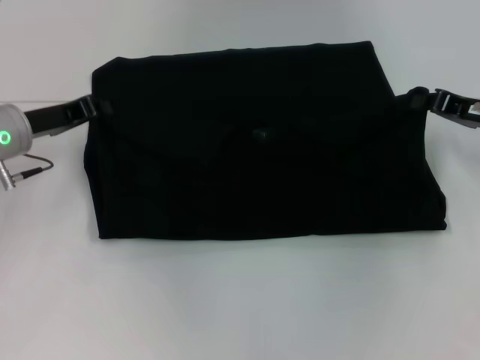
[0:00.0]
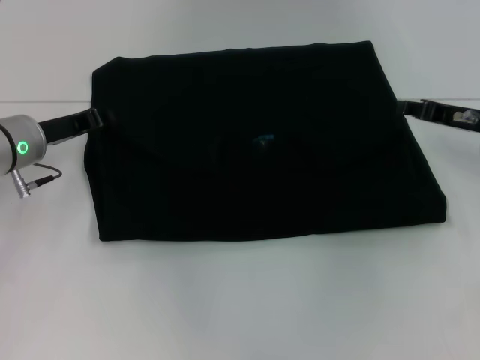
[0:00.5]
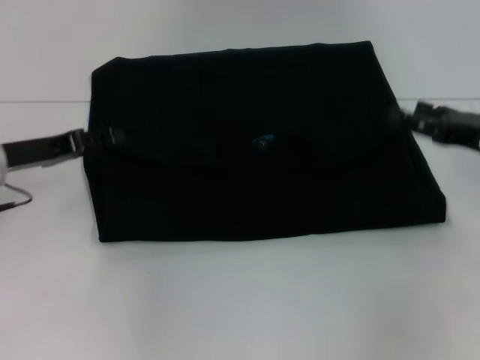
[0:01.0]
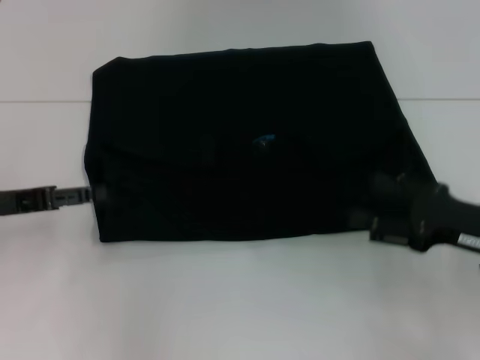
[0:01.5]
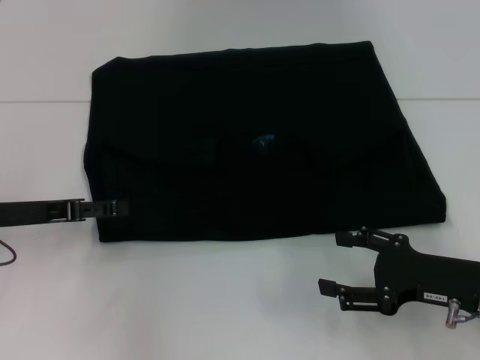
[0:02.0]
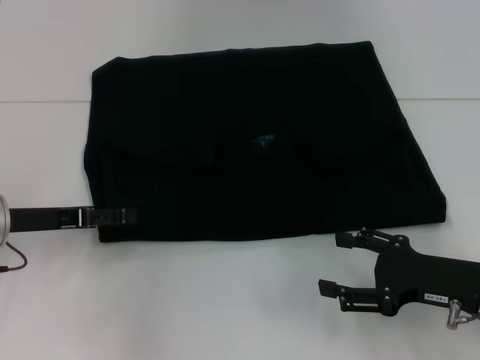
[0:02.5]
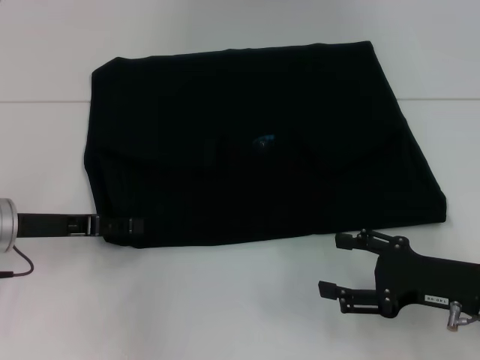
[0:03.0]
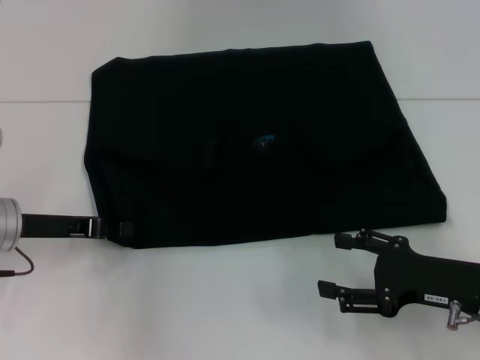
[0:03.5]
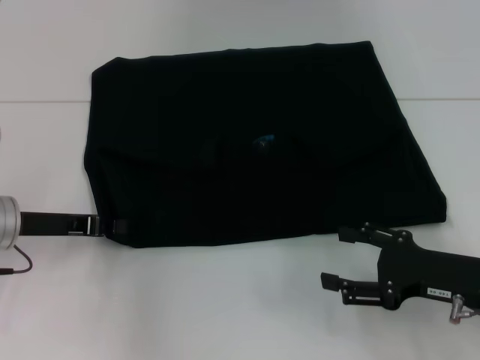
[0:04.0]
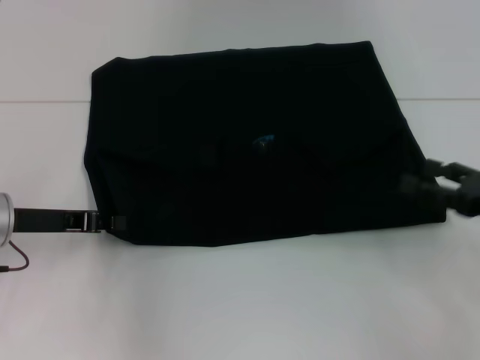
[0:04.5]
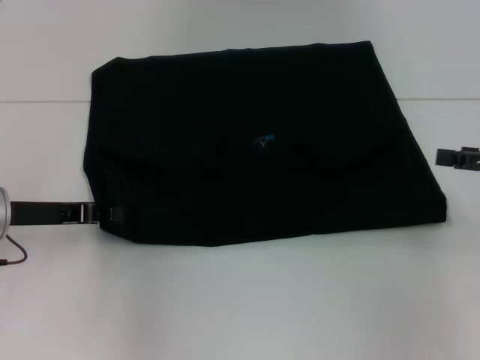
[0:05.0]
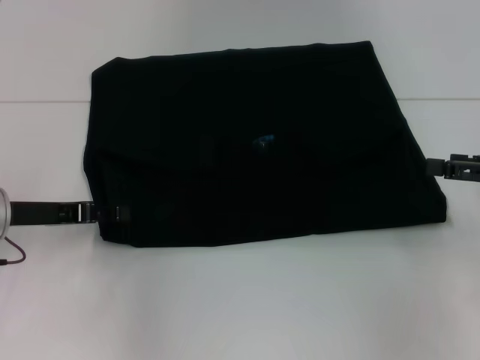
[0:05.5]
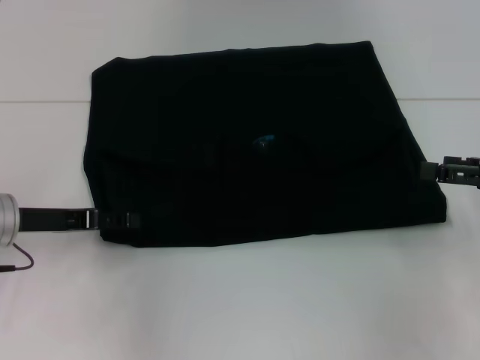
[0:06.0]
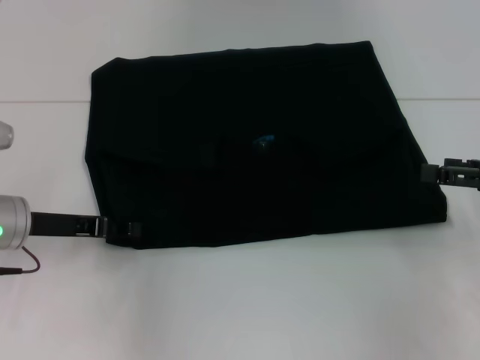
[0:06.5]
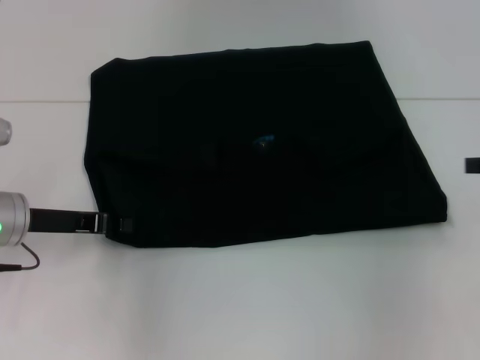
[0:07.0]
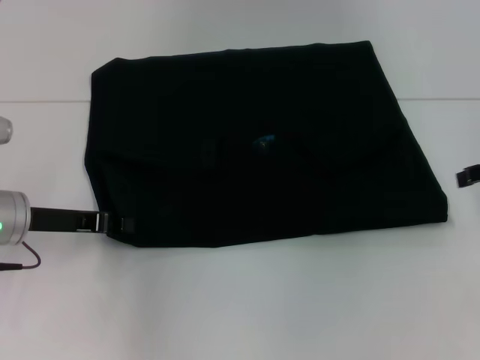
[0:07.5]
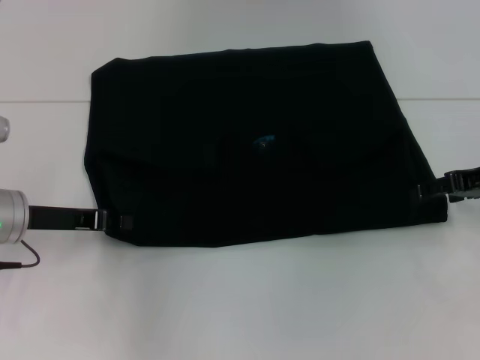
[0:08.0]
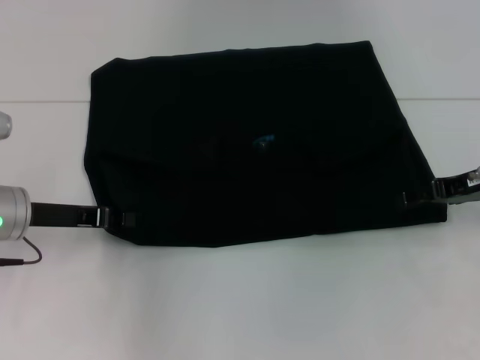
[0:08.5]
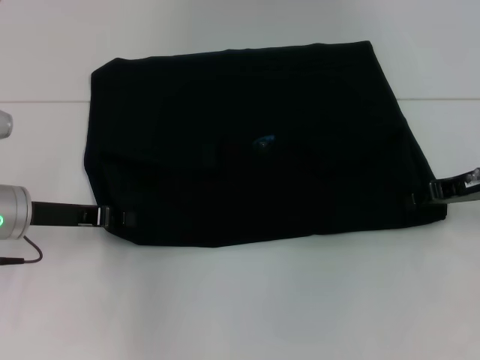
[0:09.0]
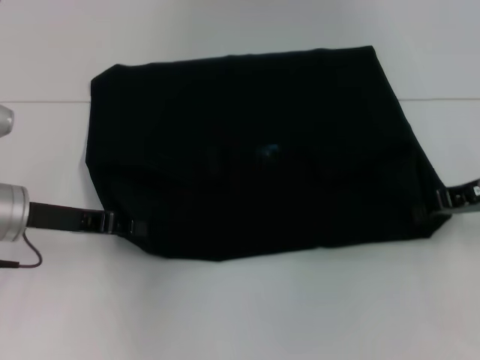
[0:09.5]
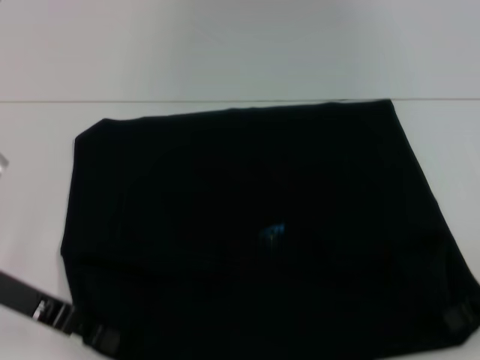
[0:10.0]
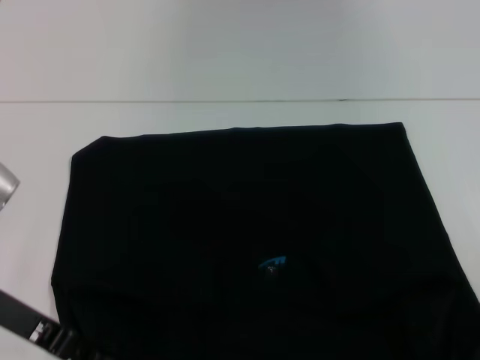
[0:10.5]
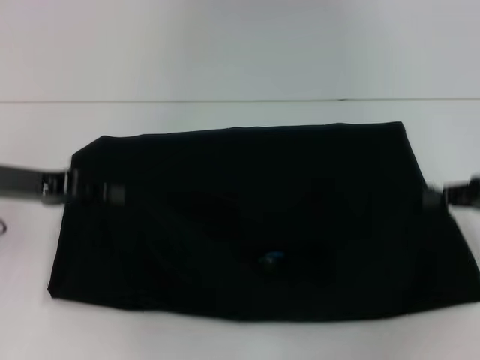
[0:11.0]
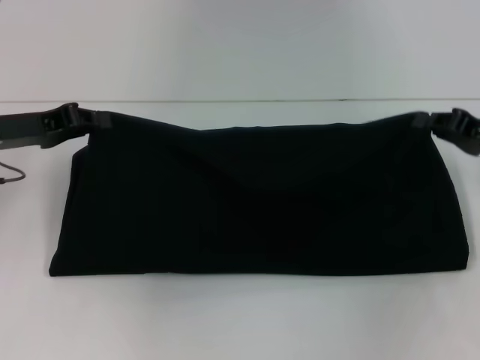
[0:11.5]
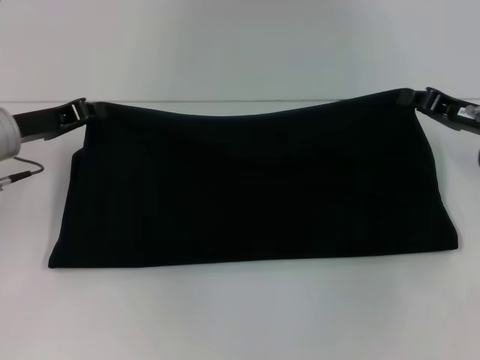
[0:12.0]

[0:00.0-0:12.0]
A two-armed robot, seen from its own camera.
Step, 0:01.5 to 0:10.0: Pull the clothes with your left hand.
Step, 0:01.5 to 0:10.0: Pull the clothes with your right hand.
0:00.0 to 0:02.0: The left gripper goes about 5 cm backward, and opens up, while the right gripper shifts roughly 15 cm backward and downward, and opens.
0:02.0 to 0:04.0: The left gripper closes up.
0:04.0 to 0:06.0: The right gripper is displaced to the right, upward and forward by roughly 15 cm. The left gripper opens.
0:06.0 to 0:08.0: The right gripper is displaced forward by about 5 cm, while the left gripper closes up.
0:08.0 to 0:10.0: The right gripper is displaced backward by some 5 cm, and closes; the left gripper moves roughly 5 cm.
0:10.0 to 0:12.0: Both grippers travel together forward, some 10 cm.

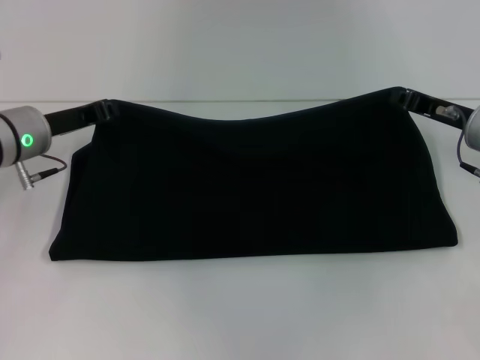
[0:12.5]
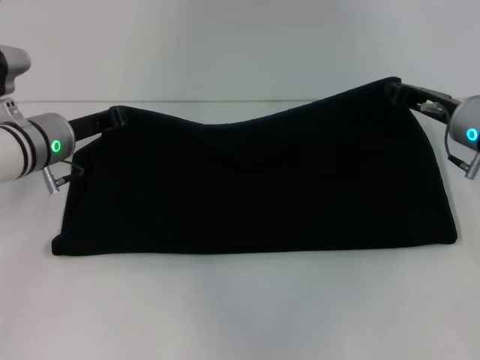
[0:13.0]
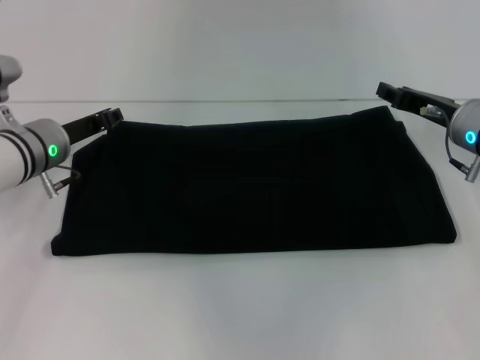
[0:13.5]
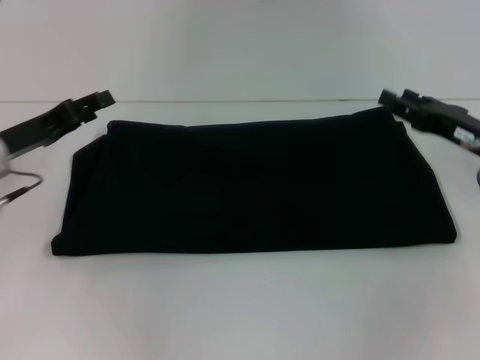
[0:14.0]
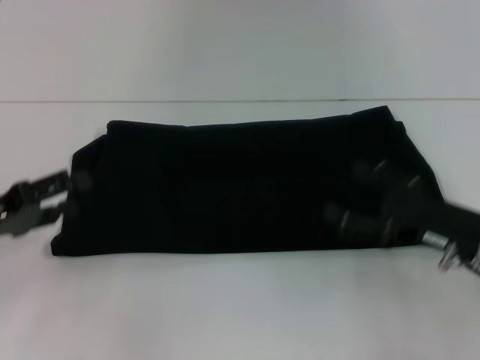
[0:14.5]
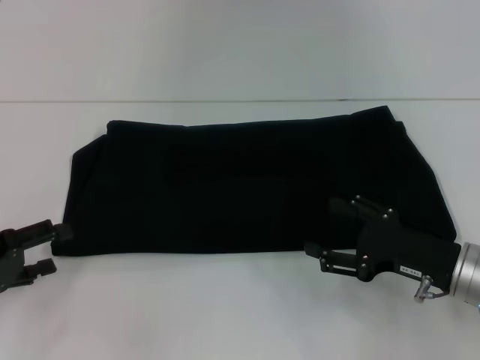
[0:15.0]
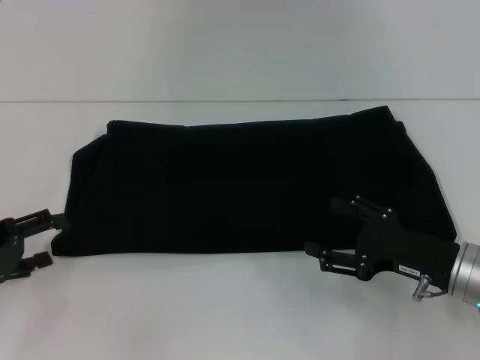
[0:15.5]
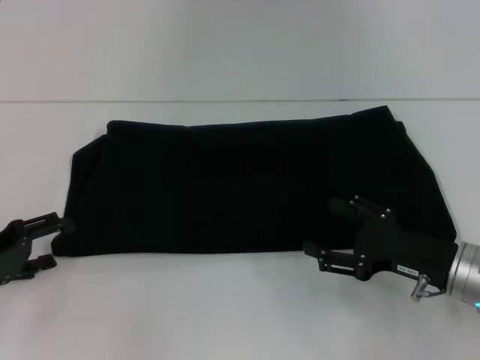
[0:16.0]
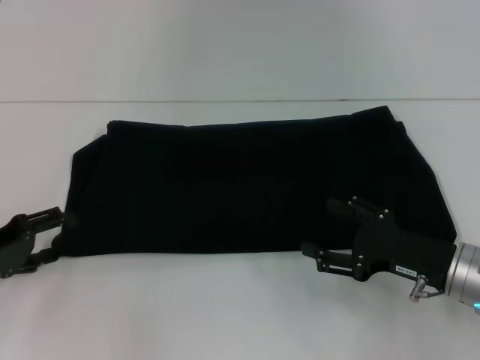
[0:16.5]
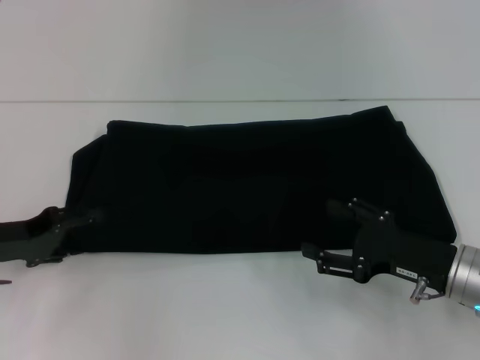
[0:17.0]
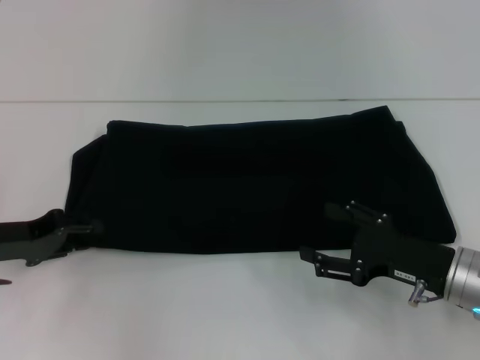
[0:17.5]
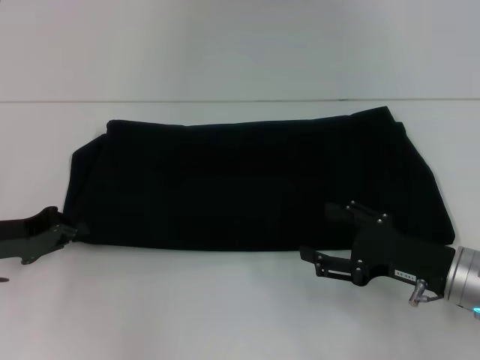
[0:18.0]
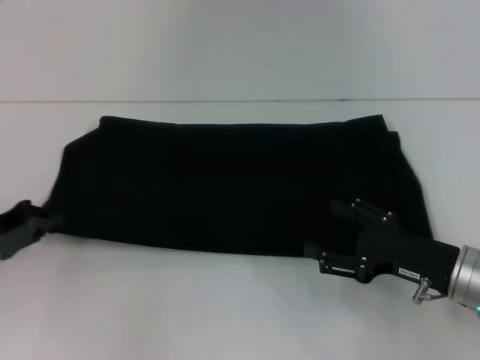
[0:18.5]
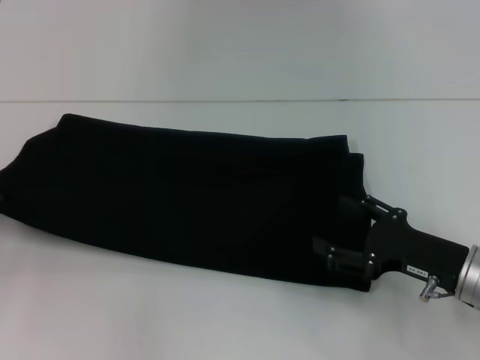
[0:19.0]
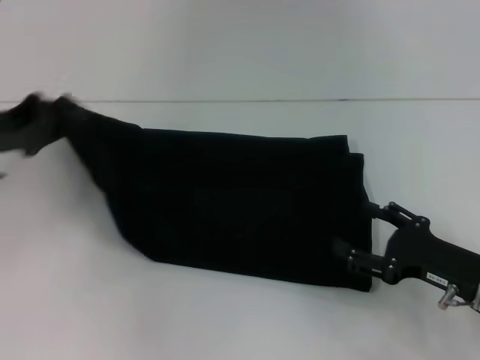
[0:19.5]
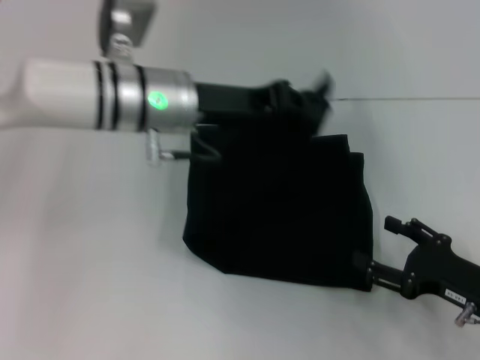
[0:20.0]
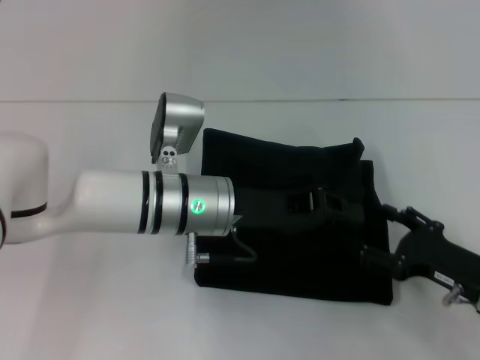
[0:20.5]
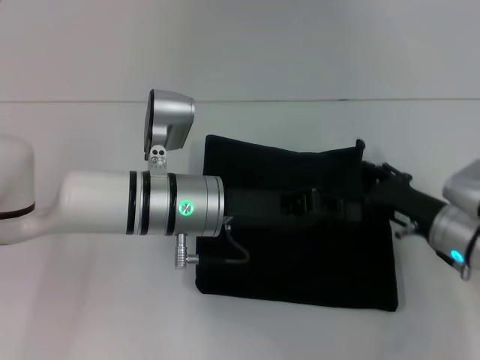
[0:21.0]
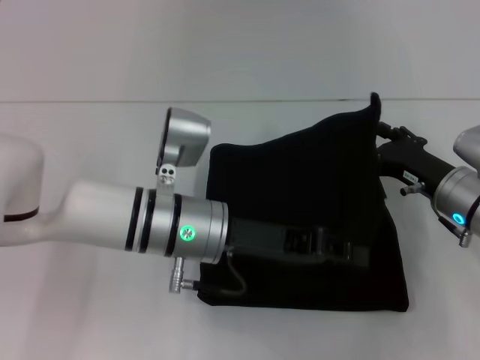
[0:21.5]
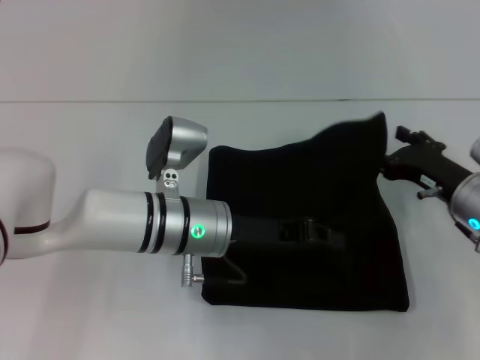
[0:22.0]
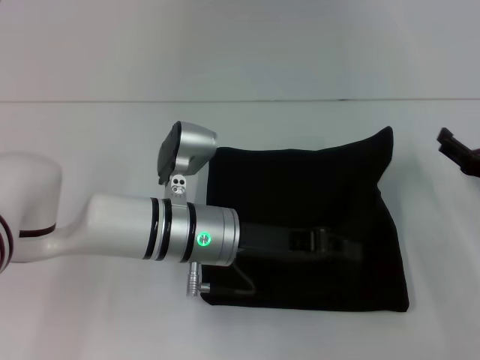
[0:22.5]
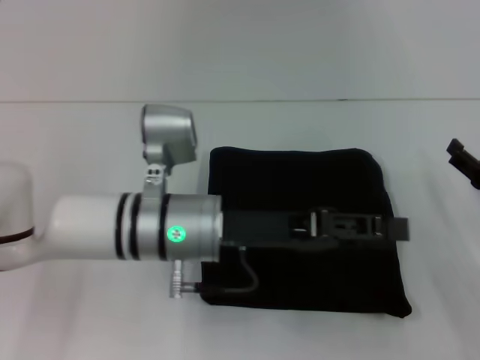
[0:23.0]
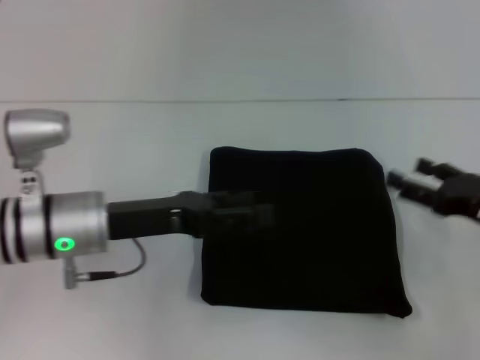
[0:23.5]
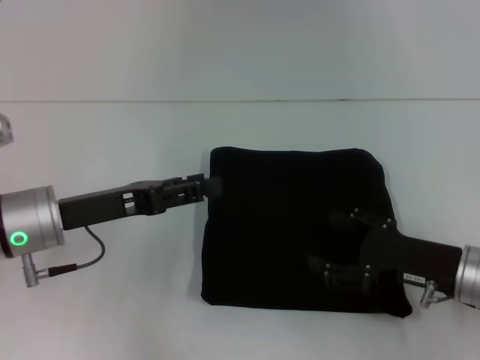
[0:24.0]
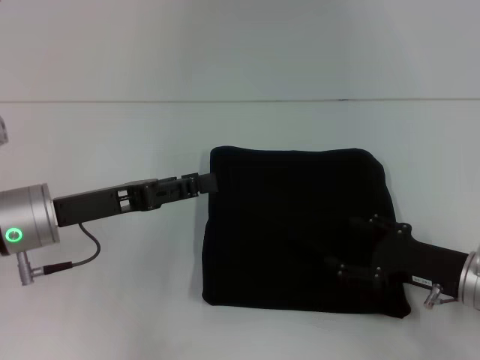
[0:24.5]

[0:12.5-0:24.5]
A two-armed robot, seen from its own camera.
Step, 0:12.5 to 0:21.5: Fold the clothes with your left hand.
0:12.5 to 0:14.5: The left gripper heads backward and to the left, covering roughly 15 cm, and opens its fingers. Meanwhile the right gripper moves backward, about 10 cm, and opens.
0:16.5 to 0:18.5: The left gripper closes.
0:18.5 to 0:20.5: The left gripper is displaced to the right by roughly 25 cm.
0:20.5 to 0:22.5: The right gripper is displaced forward by approximately 5 cm.
0:22.5 to 0:24.5: The left gripper moves to the left, about 15 cm, and opens up. The right gripper is displaced to the left by approximately 5 cm.

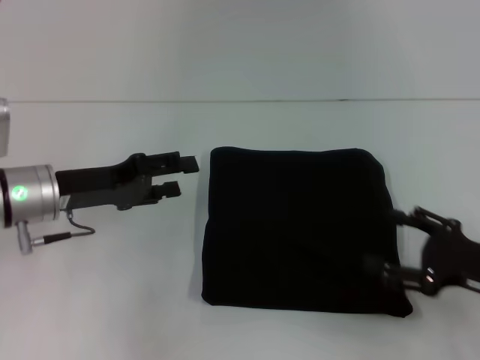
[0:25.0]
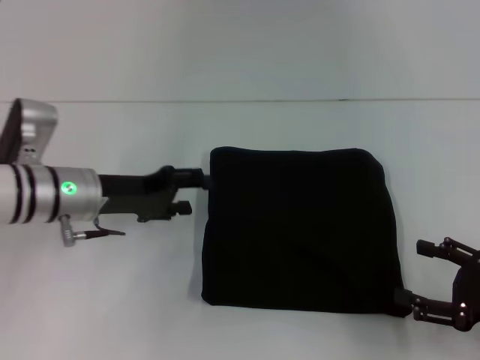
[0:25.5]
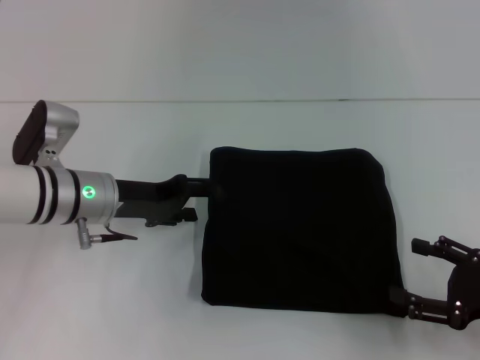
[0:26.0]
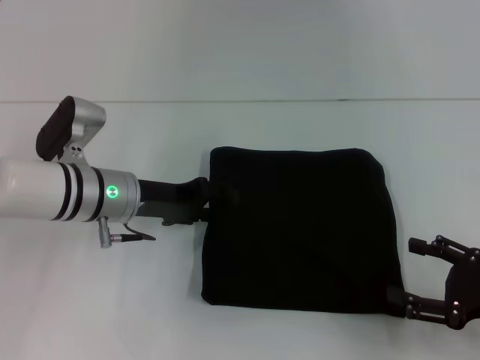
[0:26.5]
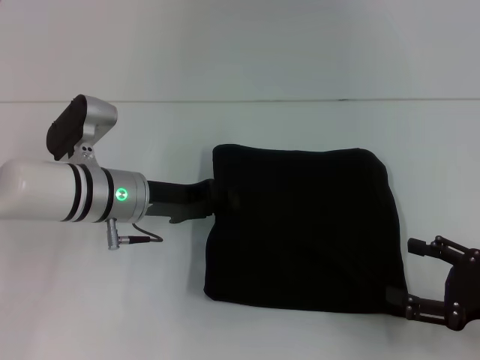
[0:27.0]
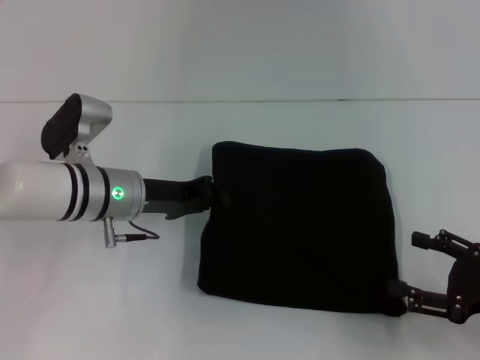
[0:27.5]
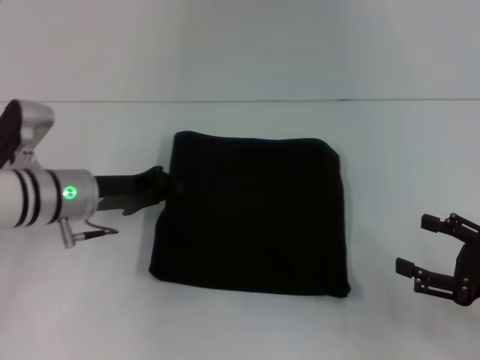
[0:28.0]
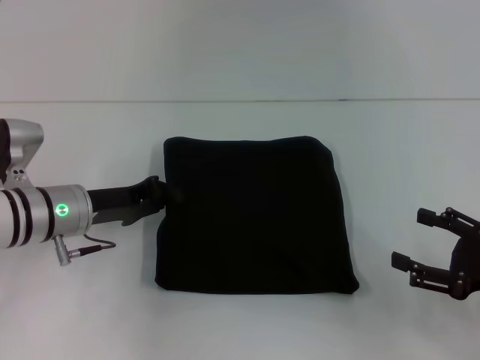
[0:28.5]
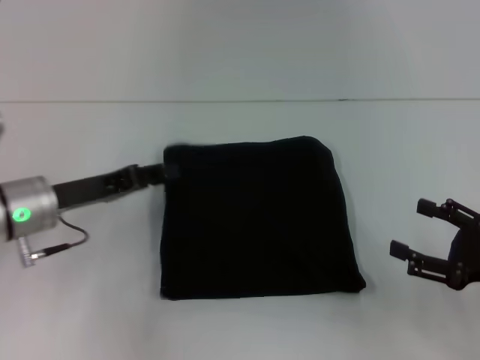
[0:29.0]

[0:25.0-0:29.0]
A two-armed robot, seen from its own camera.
0:25.0 to 0:27.0: The left gripper shifts approximately 10 cm to the right, and closes.
0:27.0 to 0:29.0: The left gripper heads to the left, covering about 10 cm.
